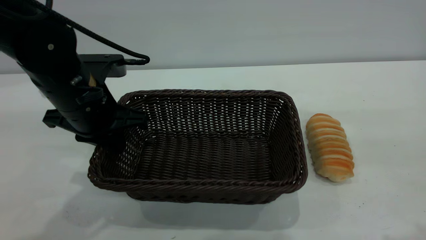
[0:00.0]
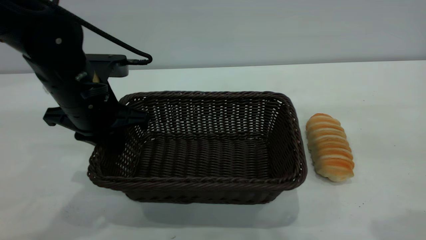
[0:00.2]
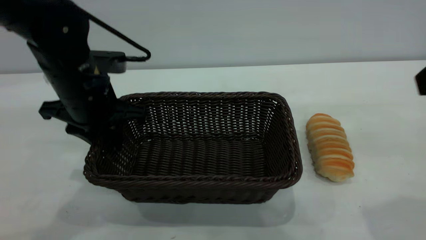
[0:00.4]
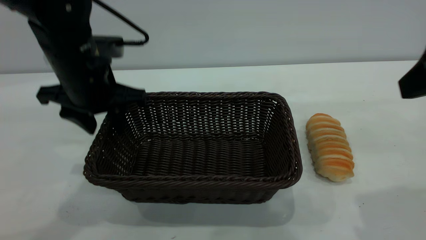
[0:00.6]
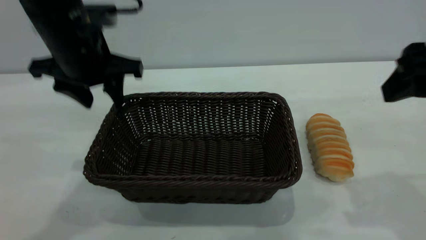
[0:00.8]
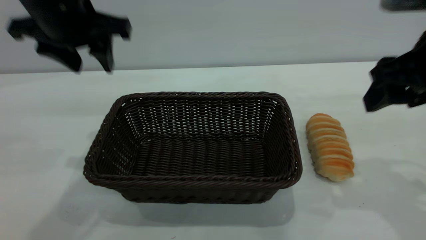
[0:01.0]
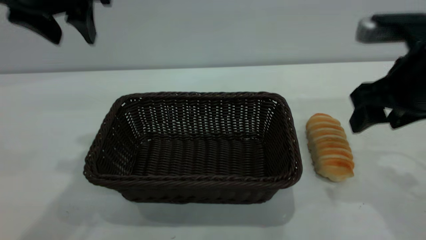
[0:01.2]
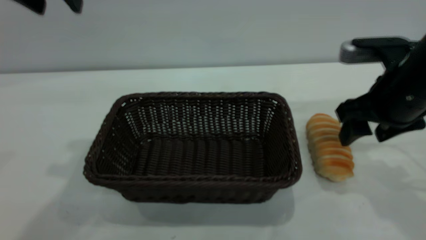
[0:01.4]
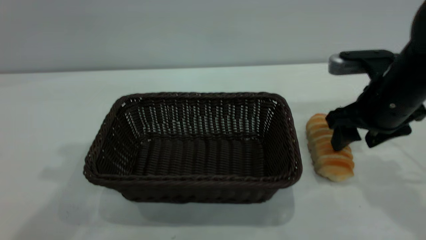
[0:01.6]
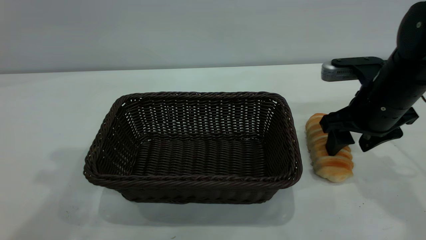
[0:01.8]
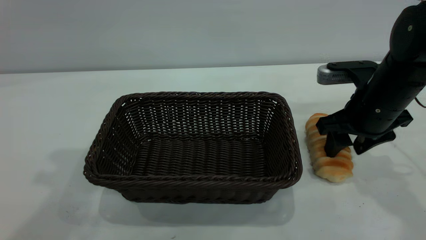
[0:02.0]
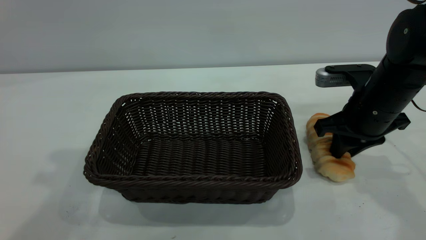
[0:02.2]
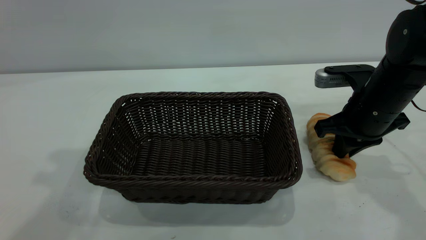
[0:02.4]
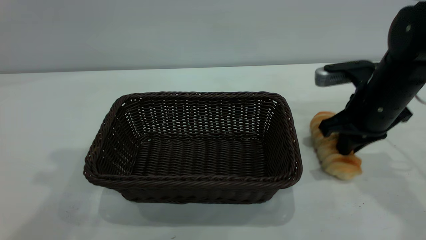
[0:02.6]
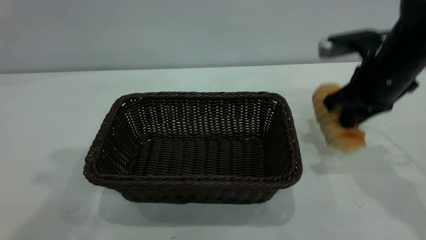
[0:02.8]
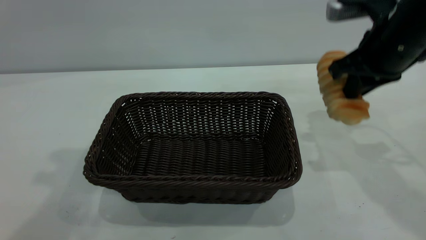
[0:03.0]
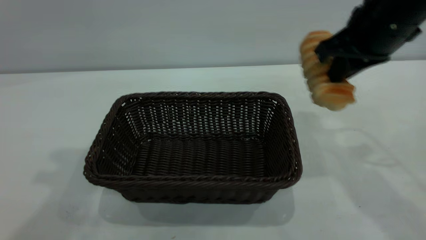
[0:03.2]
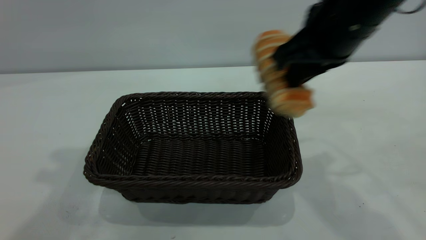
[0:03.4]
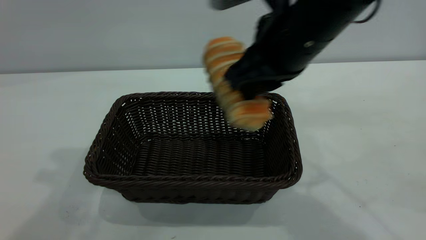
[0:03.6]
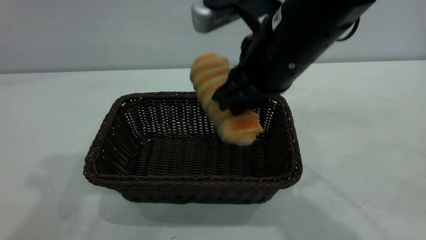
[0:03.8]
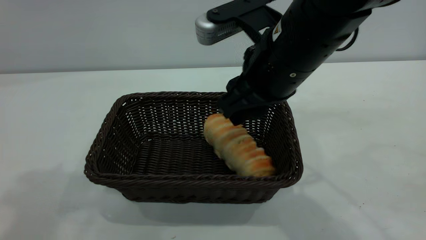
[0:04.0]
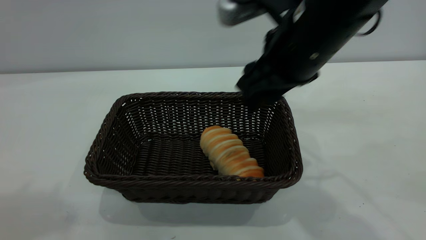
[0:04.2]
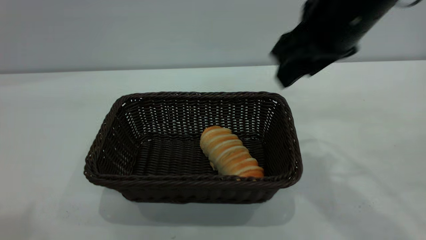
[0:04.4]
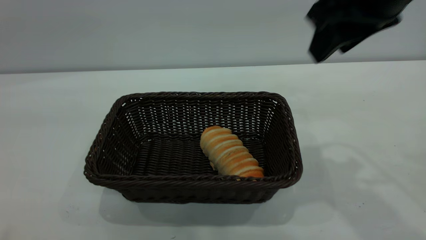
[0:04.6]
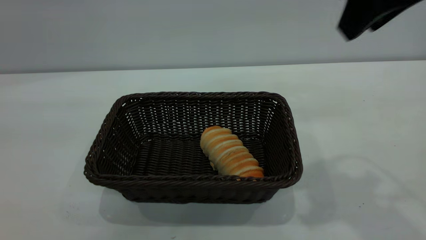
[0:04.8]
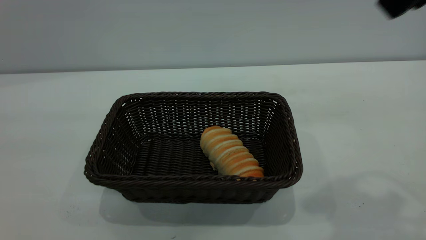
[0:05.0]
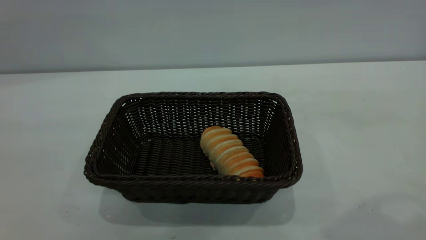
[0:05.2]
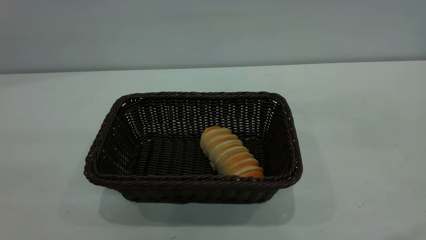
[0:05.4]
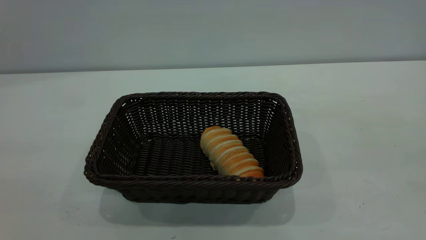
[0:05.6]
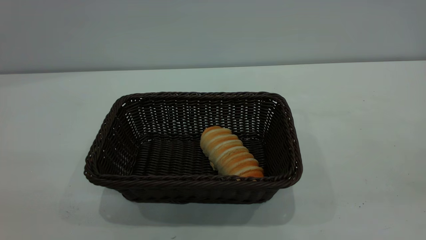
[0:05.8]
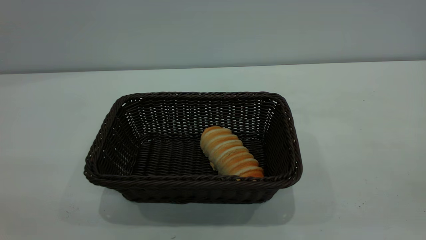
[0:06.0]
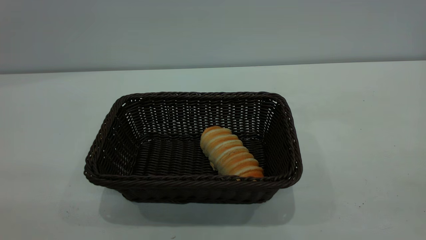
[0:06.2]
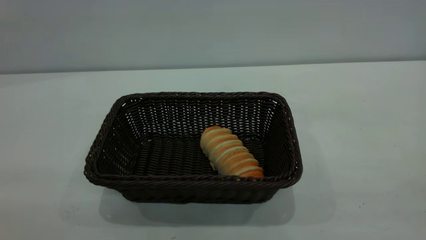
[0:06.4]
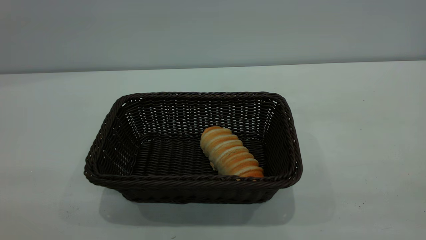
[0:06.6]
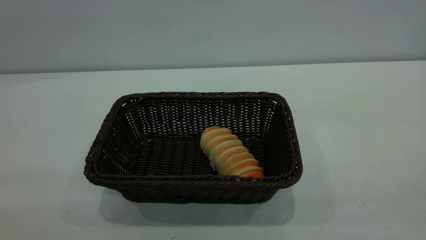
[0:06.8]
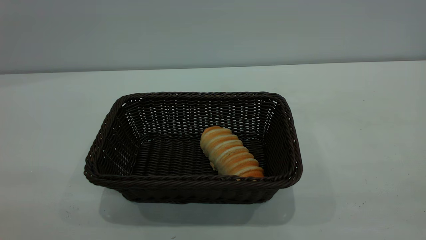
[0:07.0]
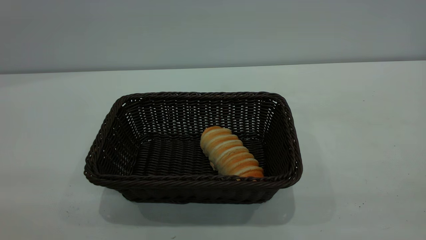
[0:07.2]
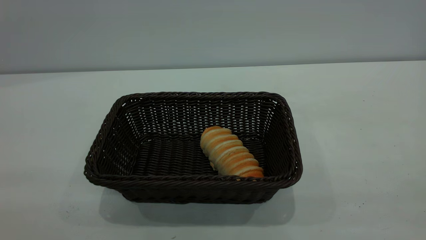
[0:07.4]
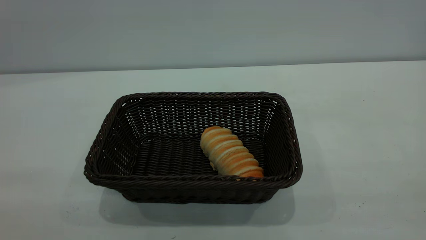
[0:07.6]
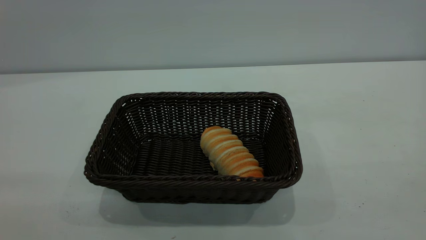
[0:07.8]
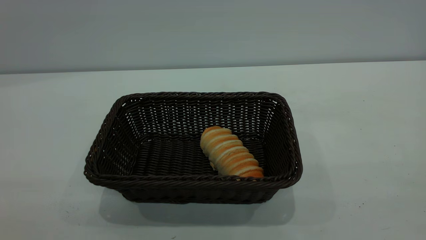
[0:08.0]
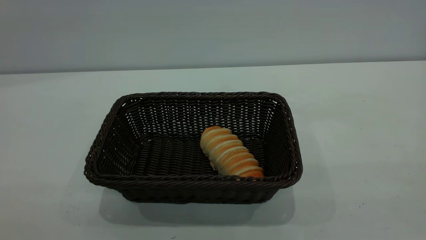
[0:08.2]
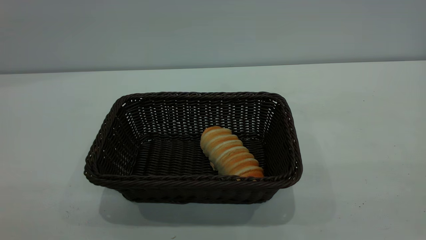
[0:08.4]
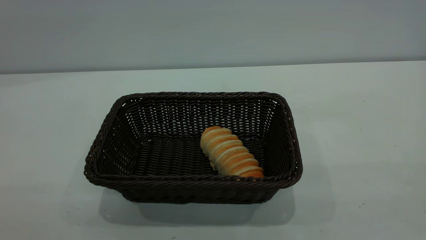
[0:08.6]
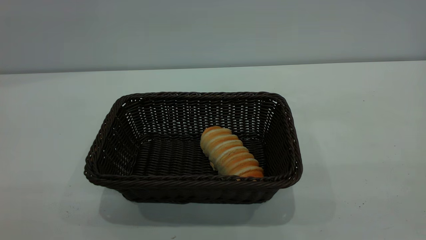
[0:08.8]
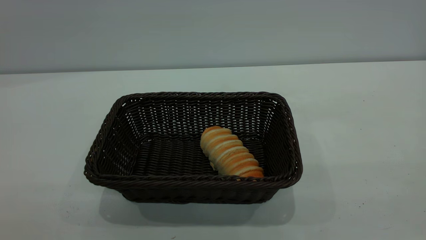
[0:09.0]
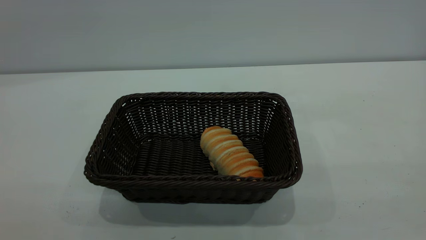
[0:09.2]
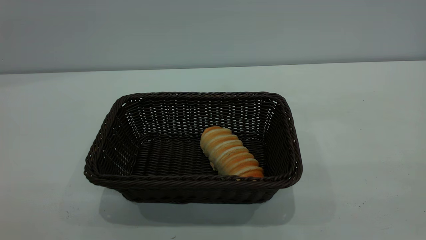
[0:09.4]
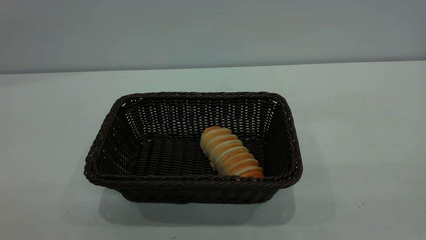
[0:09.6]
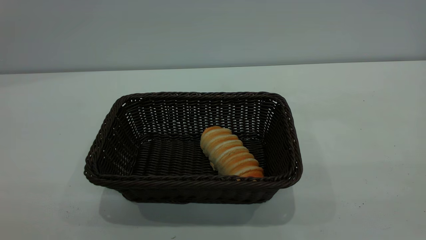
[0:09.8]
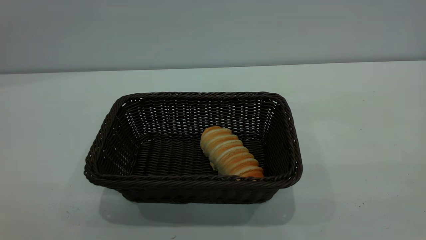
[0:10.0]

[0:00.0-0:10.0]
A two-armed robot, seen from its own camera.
Task of the whole recording: One hand grasps the black basket and places it in the middle of the table, while the other hand picks up the long bread and puts it into the black basket.
Step, 0:03.2 to 0:04.4: place the bread into the basket.
0:00.0 to 0:01.4: The left gripper travels upward by about 20 cm, and opens, while the right gripper goes roughly 25 cm forward and downward.
0:01.4 to 0:02.8: The right gripper closes up.
0:02.8 to 0:04.2: The left gripper is displaced backward and upward by roughly 10 cm; the right gripper heads to the left, upward and backward, covering approximately 15 cm, and opens.
0:04.2 to 0:05.8: The left gripper heads backward and downward, covering roughly 20 cm, while the right gripper goes about 35 cm backward, to the right and upward.
0:08.6 to 0:10.0: Neither gripper changes place.

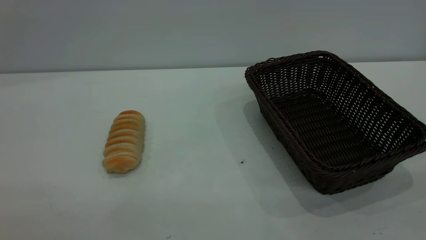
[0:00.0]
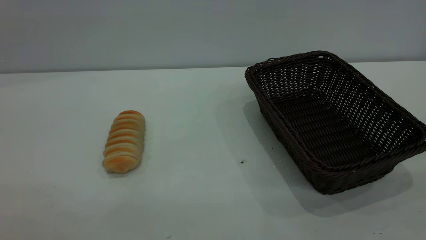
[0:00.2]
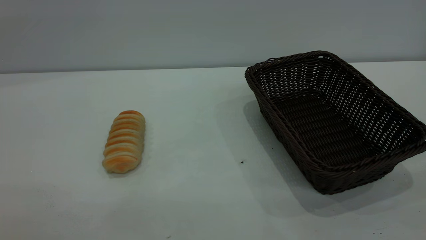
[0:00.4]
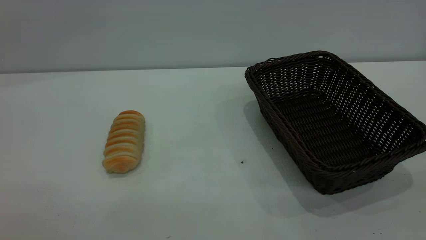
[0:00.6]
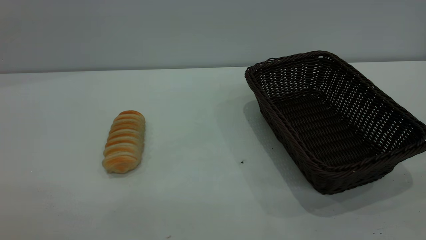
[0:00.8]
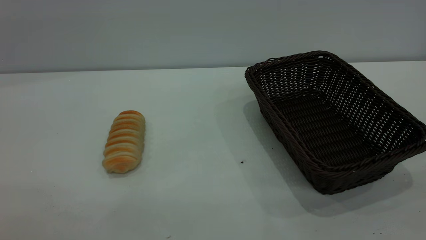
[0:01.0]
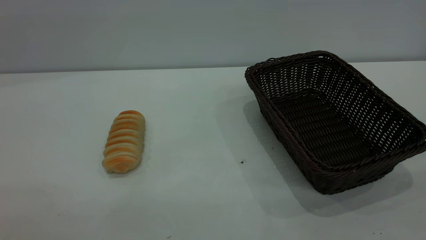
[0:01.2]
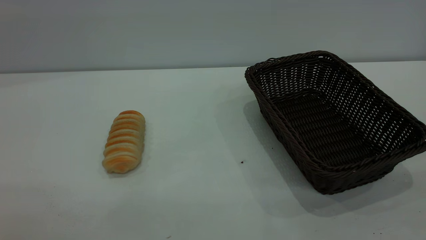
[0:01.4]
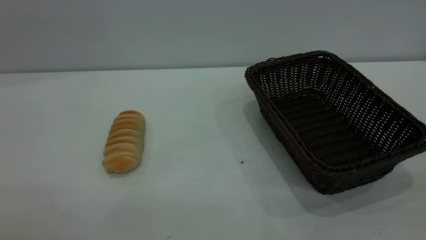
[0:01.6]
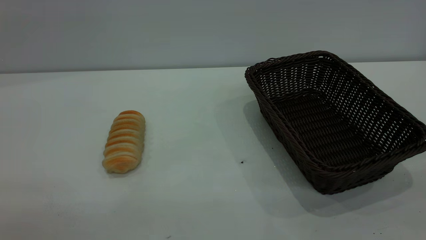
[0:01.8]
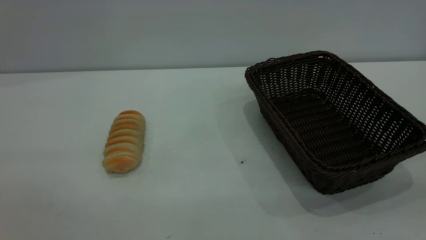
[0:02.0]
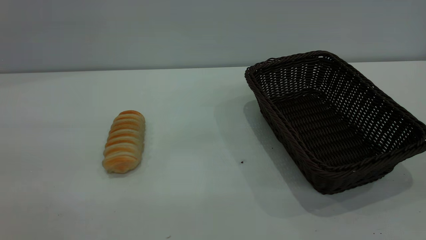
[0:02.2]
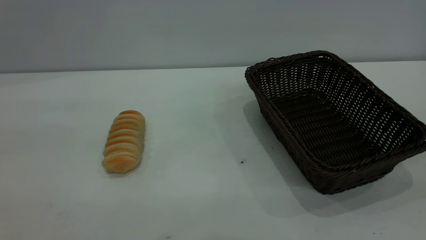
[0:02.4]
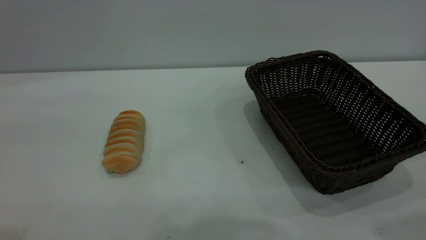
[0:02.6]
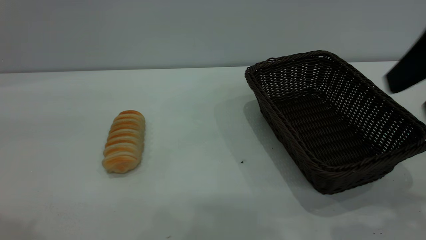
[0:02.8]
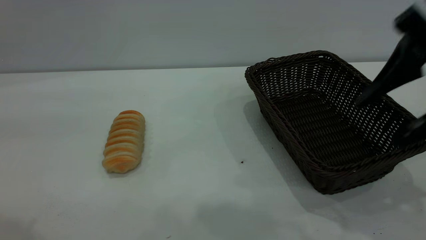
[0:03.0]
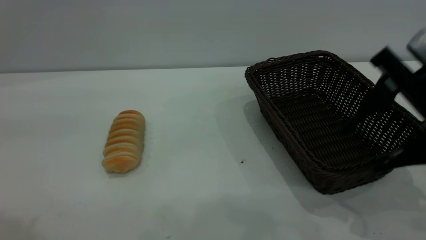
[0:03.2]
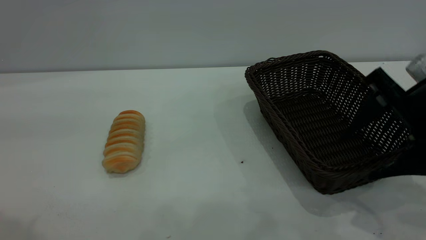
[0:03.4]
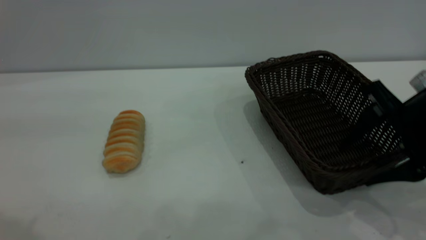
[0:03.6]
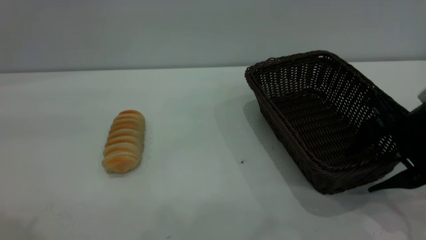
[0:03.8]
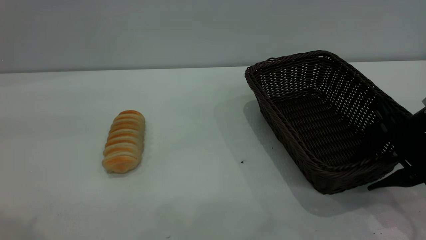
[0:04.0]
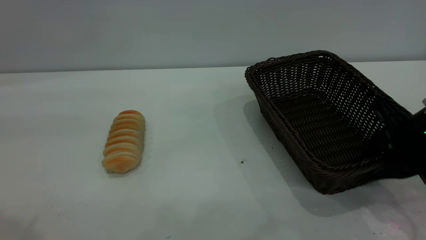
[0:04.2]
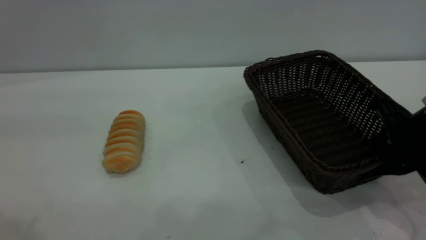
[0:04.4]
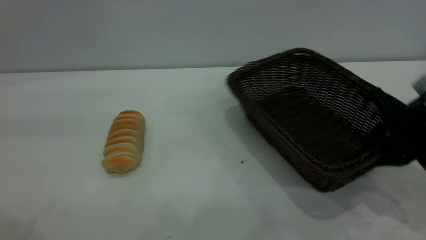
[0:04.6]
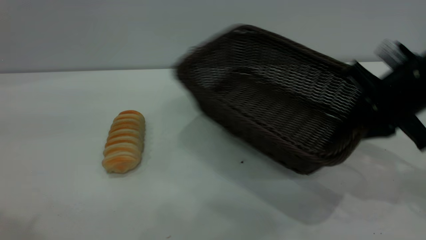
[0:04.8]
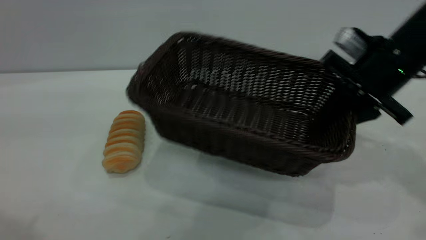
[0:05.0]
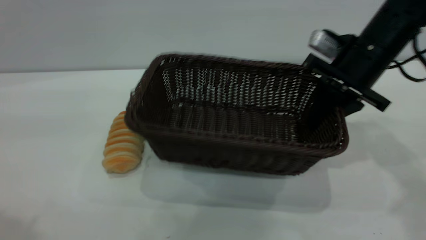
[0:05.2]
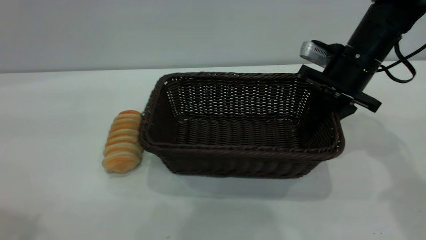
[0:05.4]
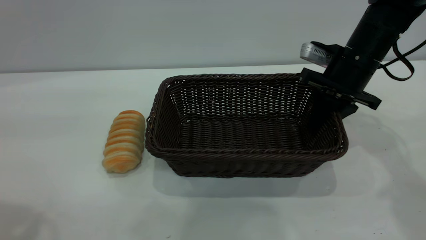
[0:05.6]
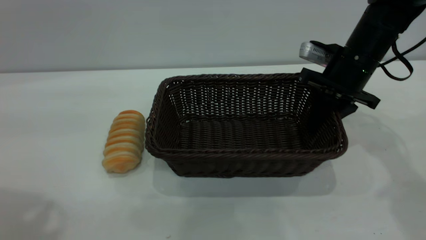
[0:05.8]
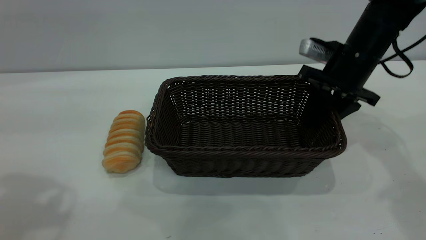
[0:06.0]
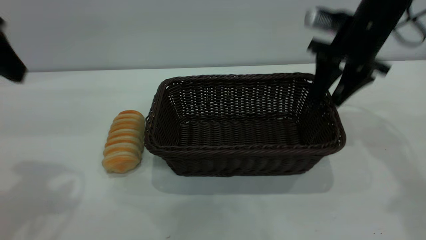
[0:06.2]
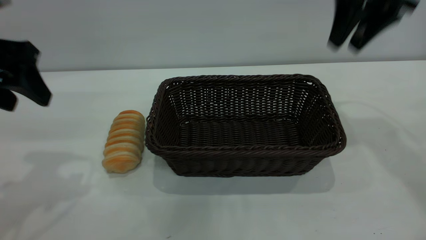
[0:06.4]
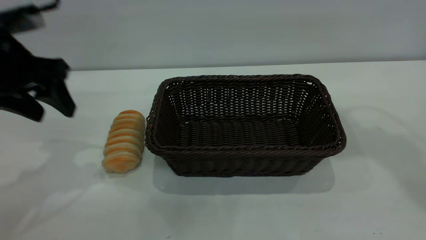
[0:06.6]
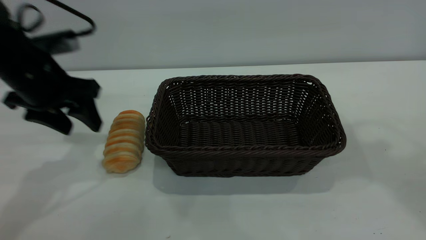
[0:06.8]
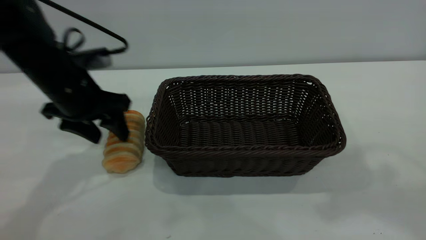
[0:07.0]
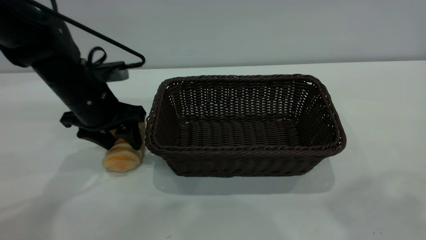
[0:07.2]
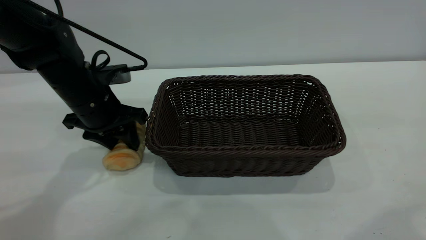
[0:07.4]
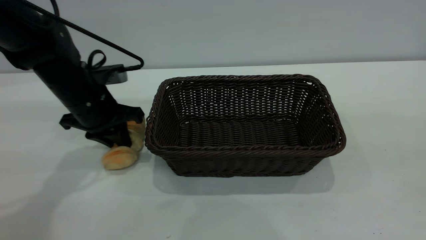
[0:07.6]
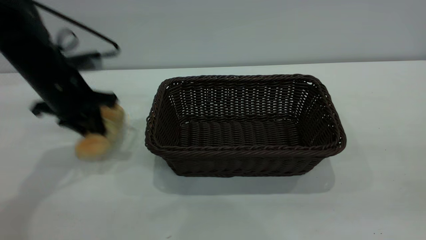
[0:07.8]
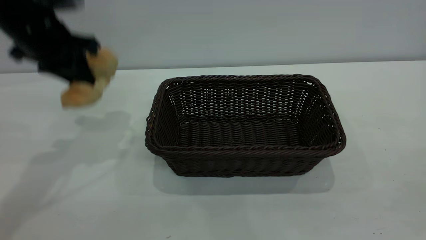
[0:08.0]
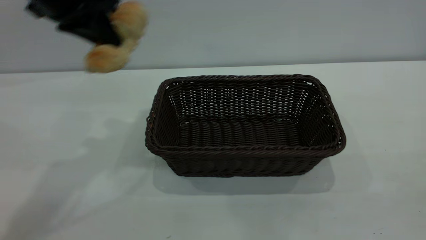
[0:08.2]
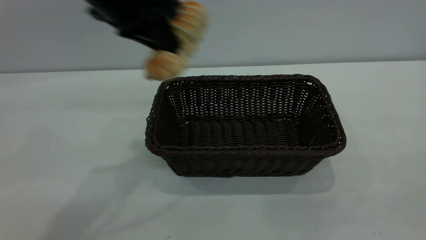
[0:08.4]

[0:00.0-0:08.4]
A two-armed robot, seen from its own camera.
Task of the whole recording: One hand grasps the black basket and places it in the middle of the table, while the other hand picks up the long bread and puts it into the black basket.
Step, 0:00.0 to 0:06.2: Move the basket to the center of view.
0:00.0 to 0:01.4: Both grippers stay about where they are.
0:01.4 to 0:02.8: The right gripper is displaced forward by approximately 20 cm, and opens up.
0:02.8 to 0:04.2: The right gripper heads downward and forward, covering roughly 20 cm, and closes its fingers.
0:04.2 to 0:05.6: The right gripper travels forward by approximately 15 cm.
0:05.6 to 0:07.0: The right gripper shifts roughly 40 cm upward and backward, and opens its fingers. The left gripper travels downward and forward by some 30 cm.
0:07.0 to 0:08.4: The right gripper heads backward and downward, covering roughly 30 cm; the left gripper shifts roughly 15 cm upward and to the right, and closes.
